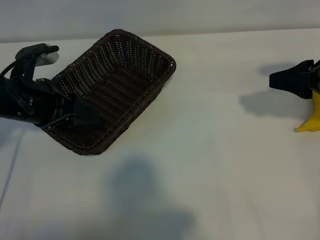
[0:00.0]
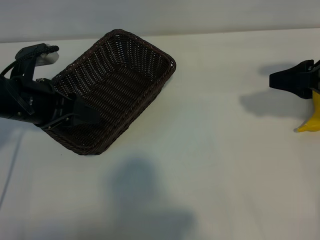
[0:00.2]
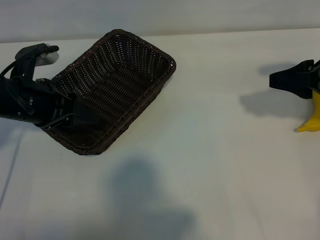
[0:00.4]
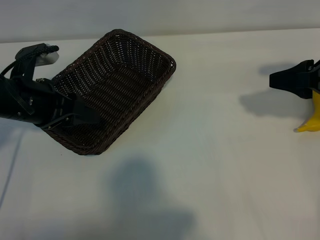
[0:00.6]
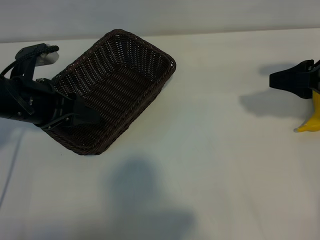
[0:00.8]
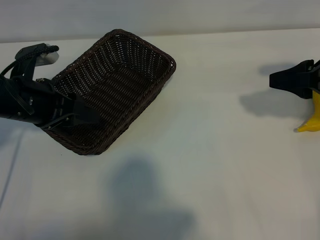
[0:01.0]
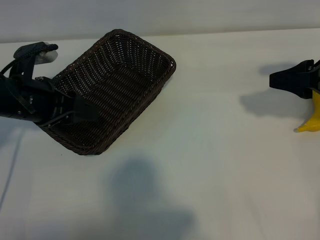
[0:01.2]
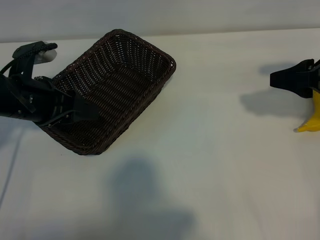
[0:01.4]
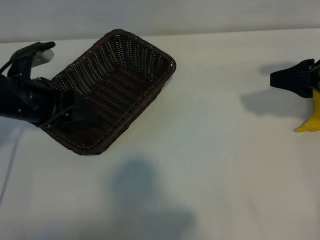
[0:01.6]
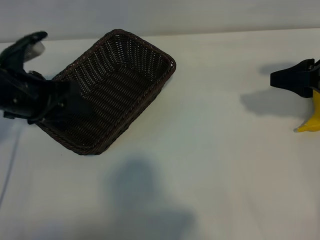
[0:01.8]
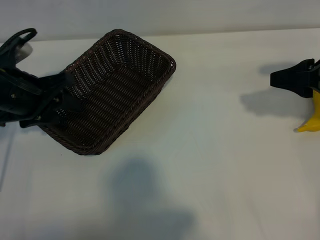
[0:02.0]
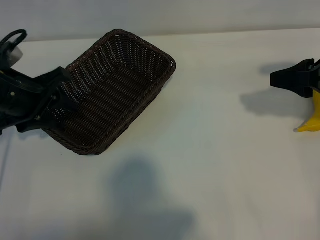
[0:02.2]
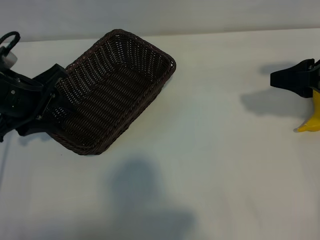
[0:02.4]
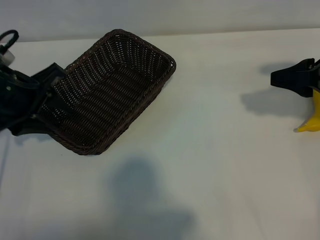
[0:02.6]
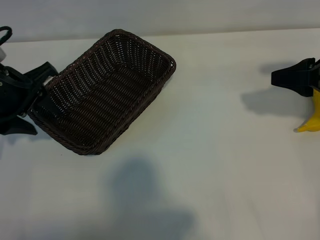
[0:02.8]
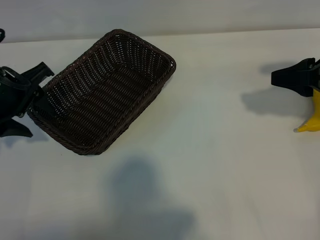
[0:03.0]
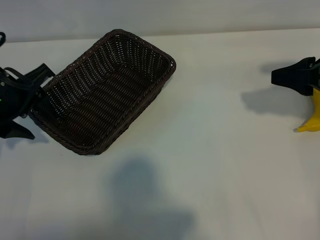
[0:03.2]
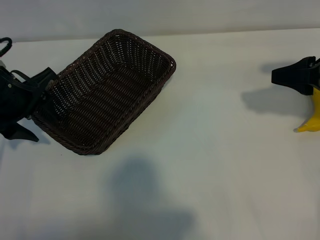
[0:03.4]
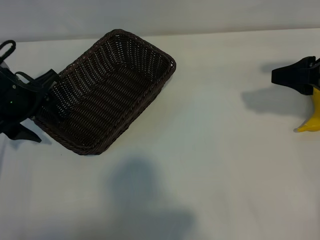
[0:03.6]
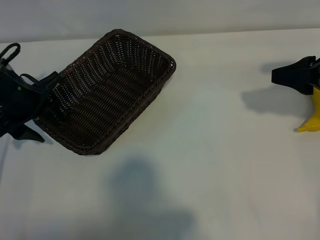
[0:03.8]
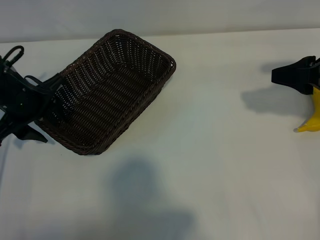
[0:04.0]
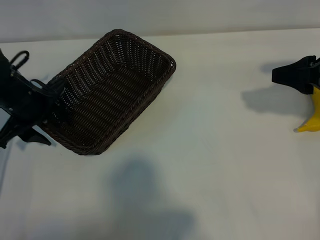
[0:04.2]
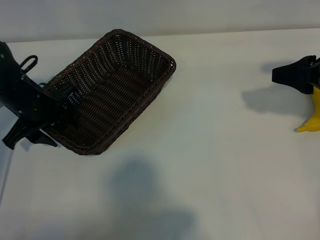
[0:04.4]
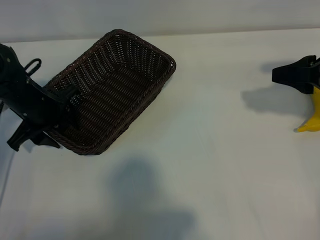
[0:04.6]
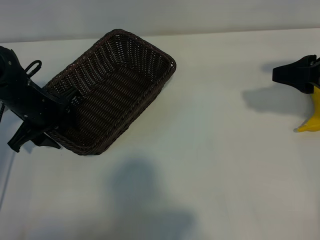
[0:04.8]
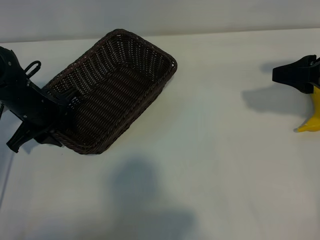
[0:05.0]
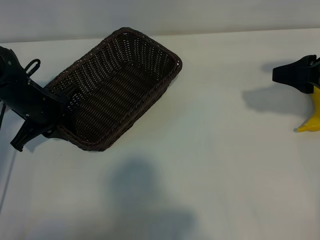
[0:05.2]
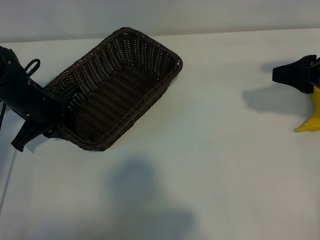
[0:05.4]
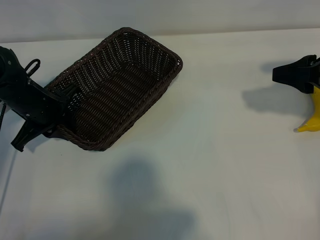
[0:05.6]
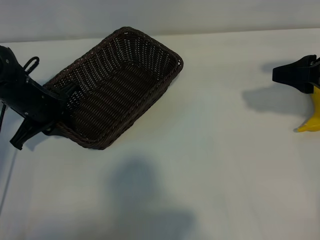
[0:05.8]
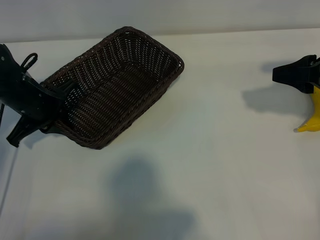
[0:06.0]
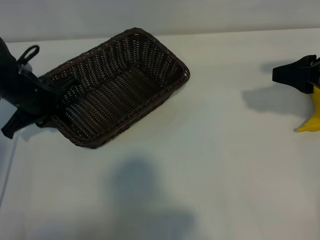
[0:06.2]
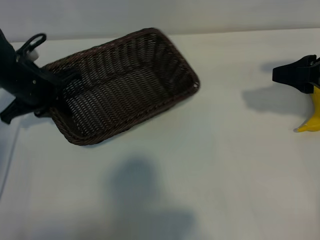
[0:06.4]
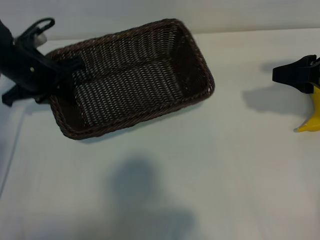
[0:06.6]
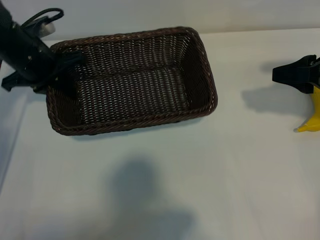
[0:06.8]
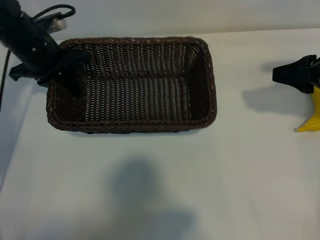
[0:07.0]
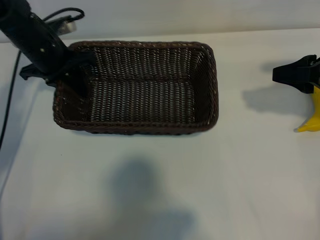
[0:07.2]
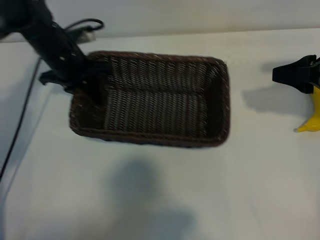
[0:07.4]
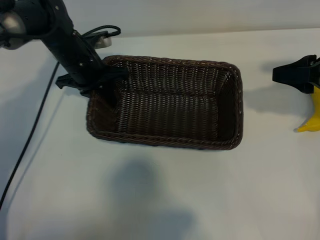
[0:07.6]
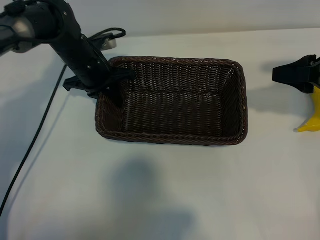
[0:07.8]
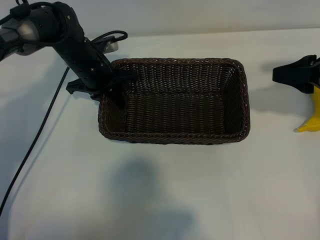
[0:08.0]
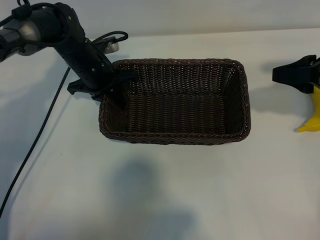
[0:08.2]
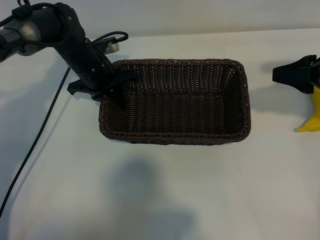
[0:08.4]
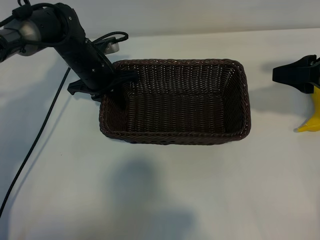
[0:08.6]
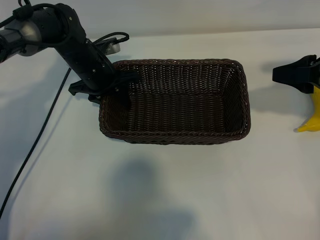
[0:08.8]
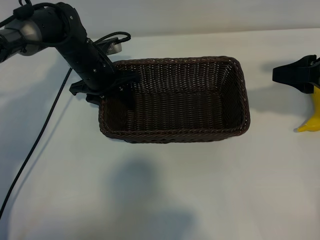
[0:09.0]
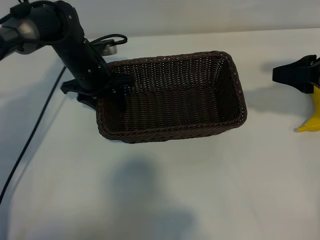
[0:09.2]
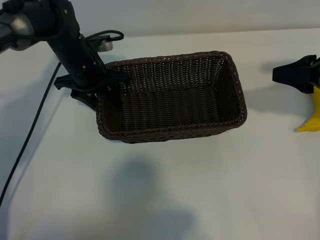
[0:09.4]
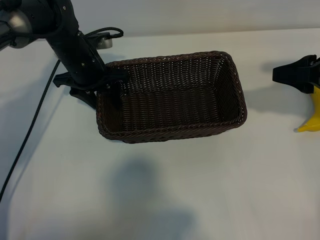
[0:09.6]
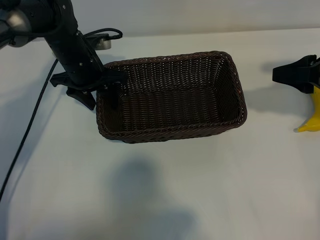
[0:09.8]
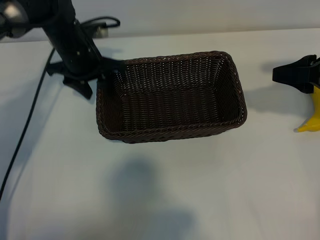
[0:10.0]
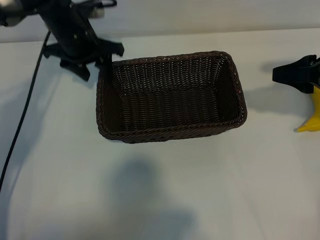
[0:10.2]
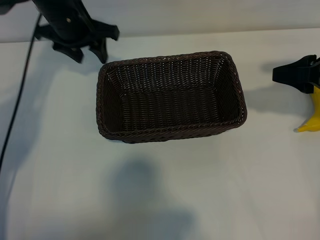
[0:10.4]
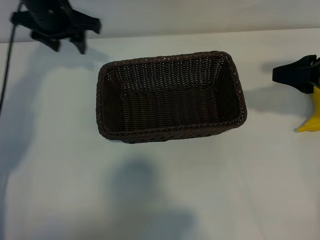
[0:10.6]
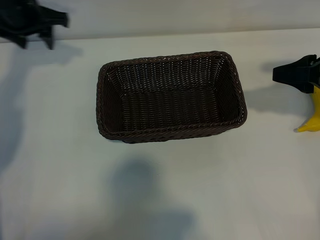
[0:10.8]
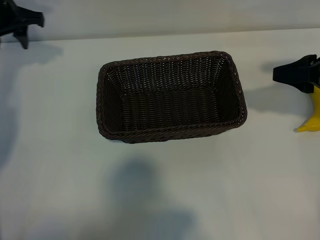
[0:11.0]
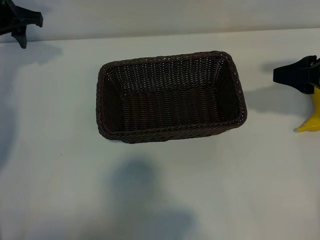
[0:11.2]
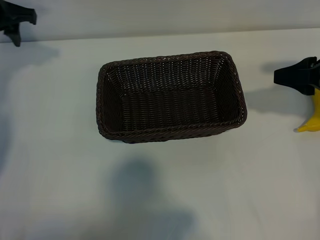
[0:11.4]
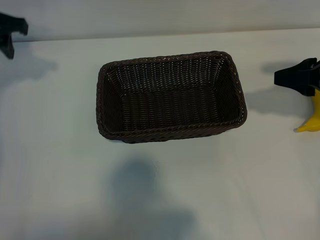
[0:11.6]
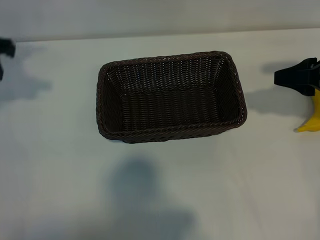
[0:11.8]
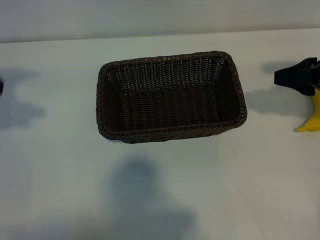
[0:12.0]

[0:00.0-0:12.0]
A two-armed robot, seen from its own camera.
Task of the whole recording: pick up the banana and put it into the basket.
Step, 0:01.0 to 0:05.4: Grasp the basket with the left gripper.
Step, 0:05.8 to 0:09.6: Place the basket in the center of the table with the left gripper.

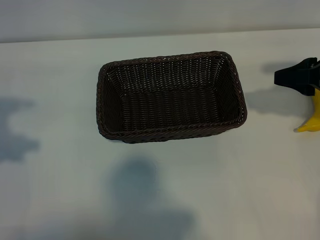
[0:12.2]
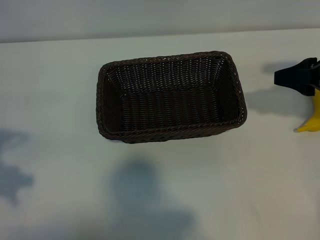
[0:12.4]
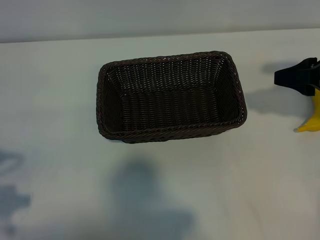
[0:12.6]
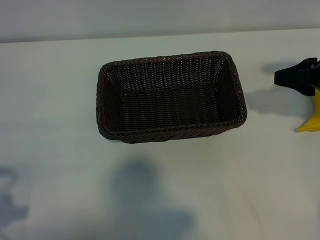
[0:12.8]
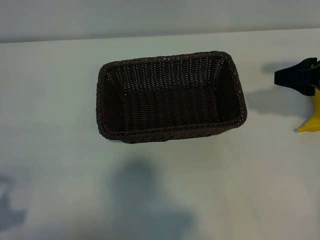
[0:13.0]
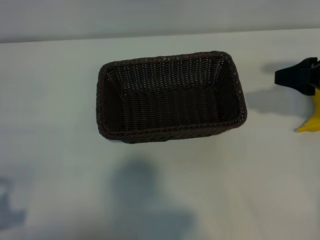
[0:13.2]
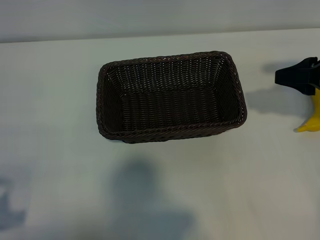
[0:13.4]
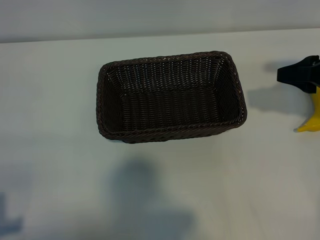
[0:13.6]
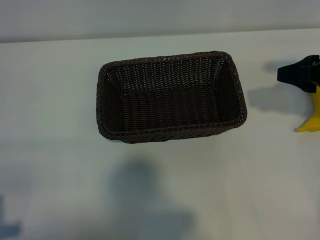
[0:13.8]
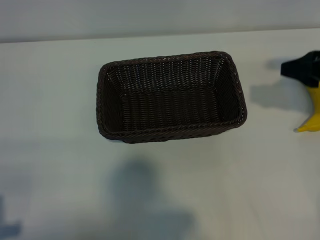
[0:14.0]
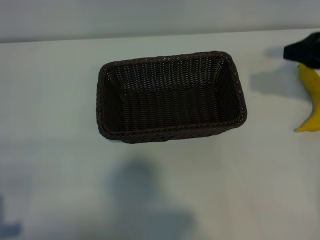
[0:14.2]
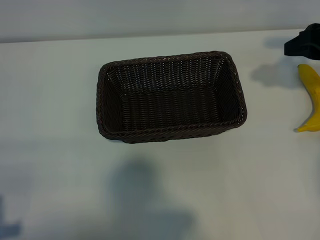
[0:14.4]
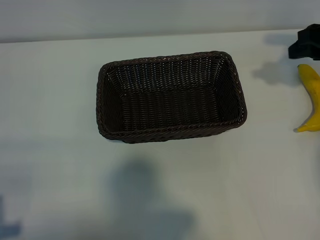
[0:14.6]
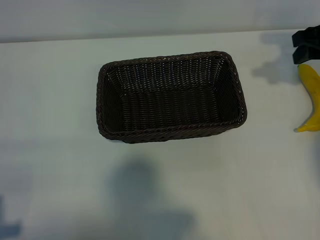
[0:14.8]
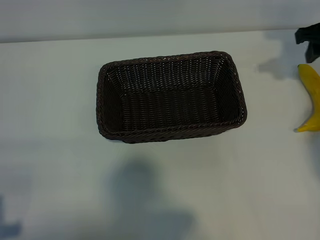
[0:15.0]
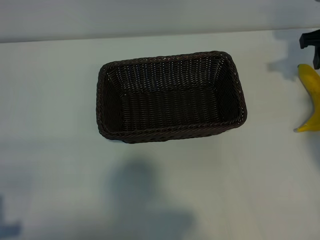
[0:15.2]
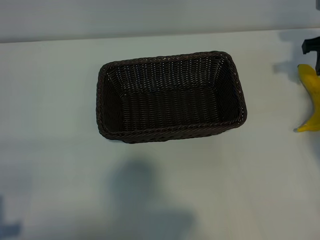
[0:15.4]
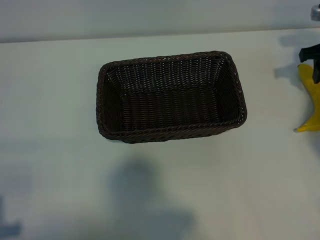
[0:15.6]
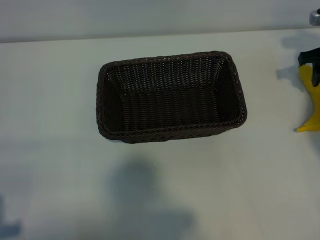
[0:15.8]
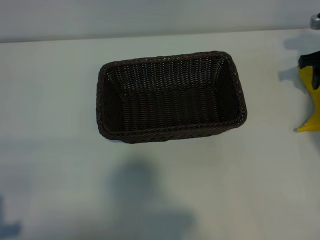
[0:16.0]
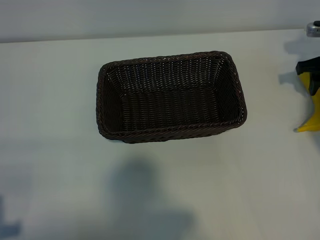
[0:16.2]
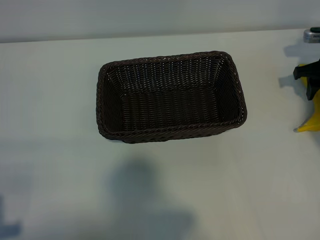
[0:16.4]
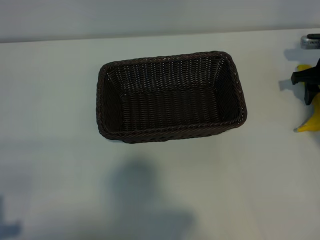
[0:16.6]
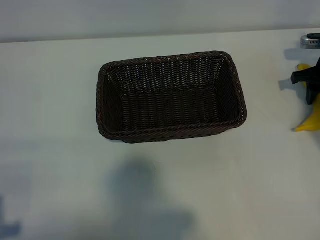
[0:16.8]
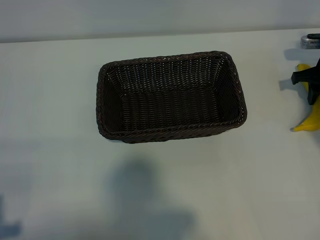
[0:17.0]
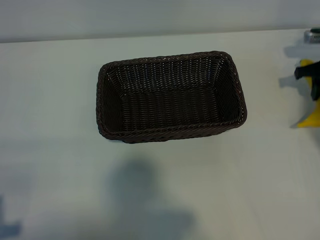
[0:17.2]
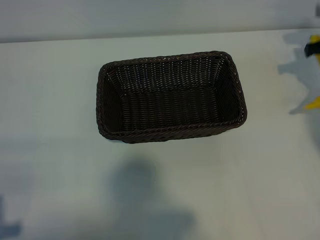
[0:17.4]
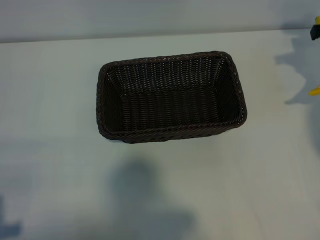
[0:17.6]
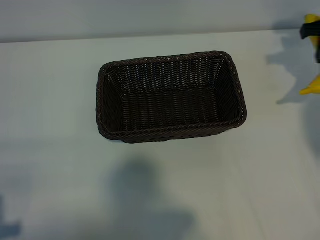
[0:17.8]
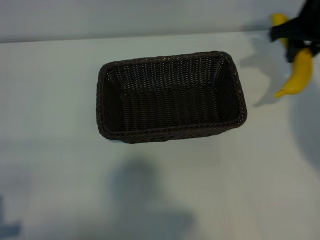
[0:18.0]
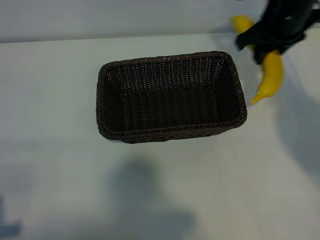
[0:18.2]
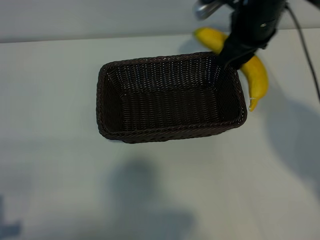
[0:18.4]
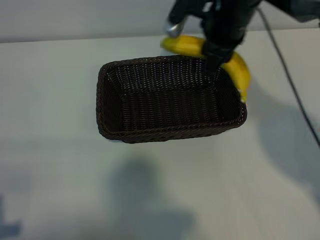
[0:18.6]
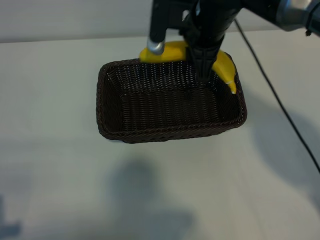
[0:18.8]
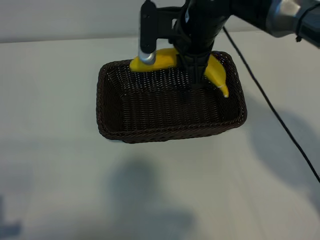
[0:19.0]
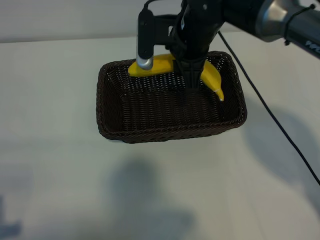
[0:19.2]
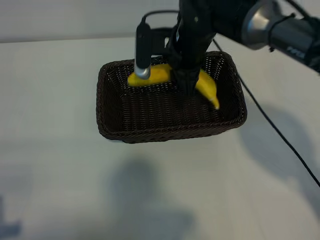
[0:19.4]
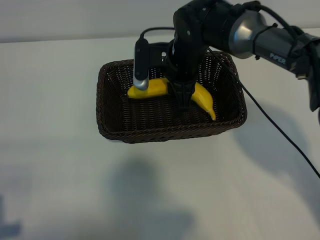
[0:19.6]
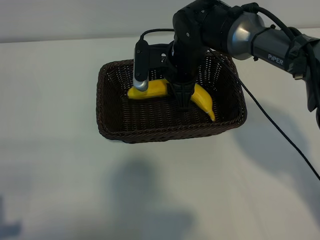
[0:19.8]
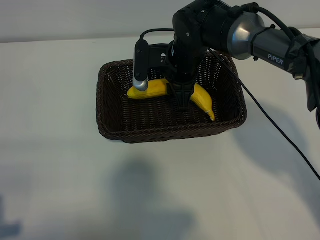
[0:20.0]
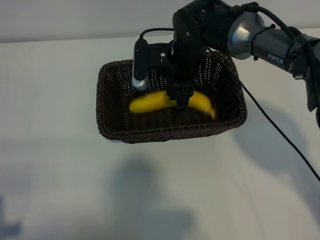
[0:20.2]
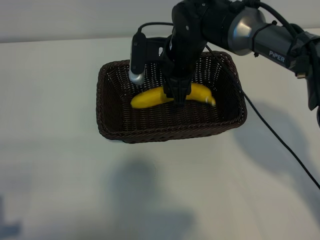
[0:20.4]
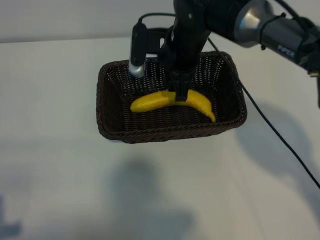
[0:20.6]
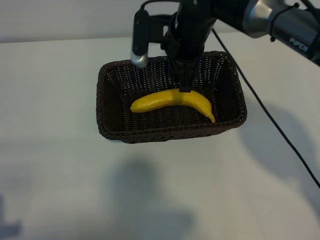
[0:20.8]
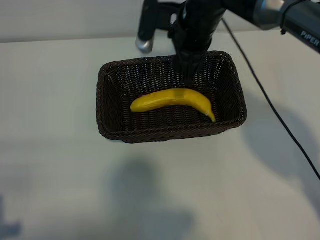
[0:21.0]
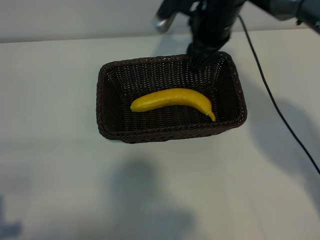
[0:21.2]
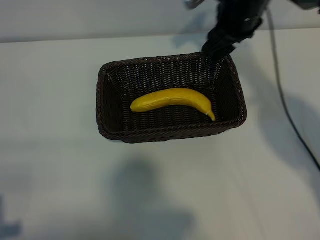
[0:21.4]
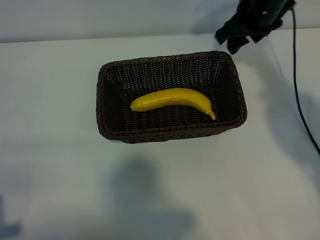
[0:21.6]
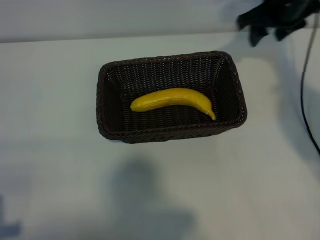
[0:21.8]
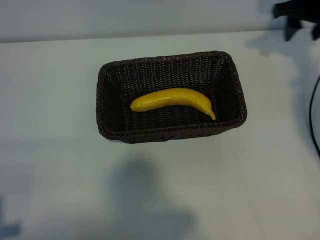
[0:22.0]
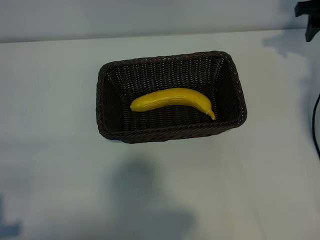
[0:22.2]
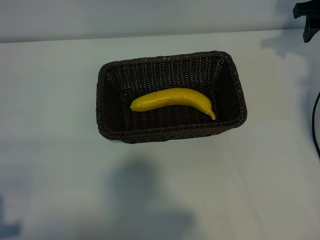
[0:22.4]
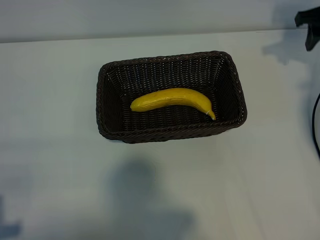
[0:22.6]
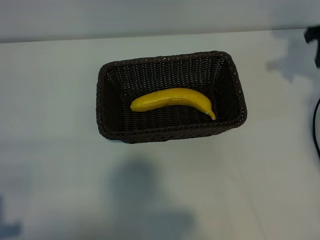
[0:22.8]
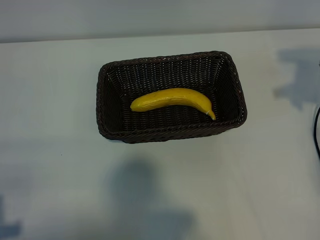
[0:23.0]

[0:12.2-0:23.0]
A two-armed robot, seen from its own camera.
Task of the whole recording: pick up the banana and put it into the basket.
Step, 0:12.2 to 0:16.8: Grasp the banana with right gripper.
Step, 0:17.0 to 0:20.8: Place the banana in the basket with right gripper.
